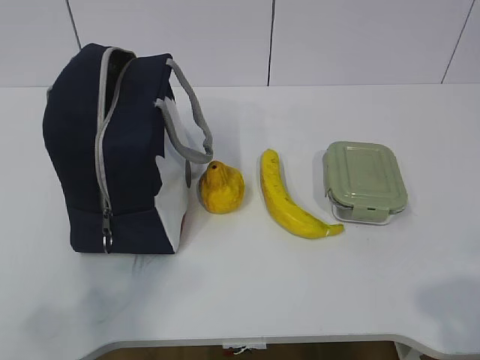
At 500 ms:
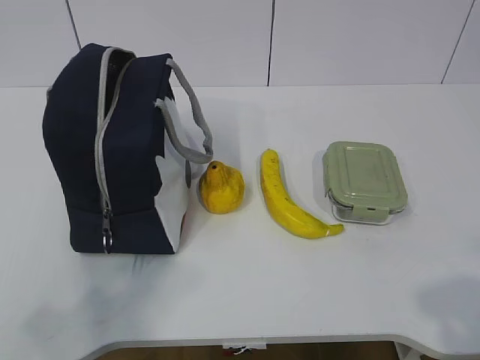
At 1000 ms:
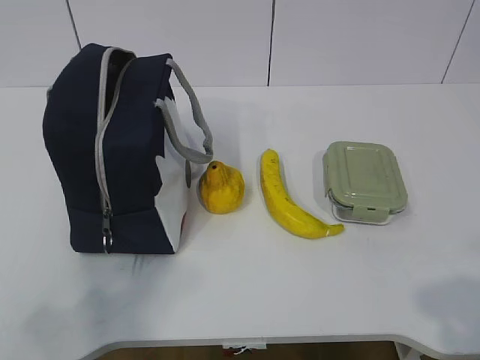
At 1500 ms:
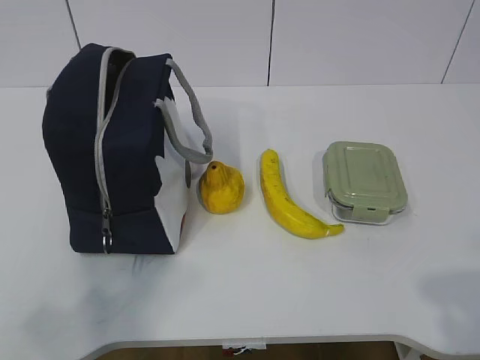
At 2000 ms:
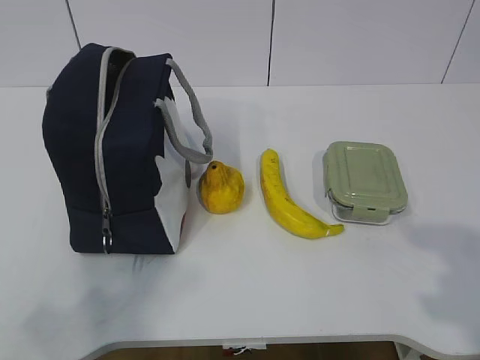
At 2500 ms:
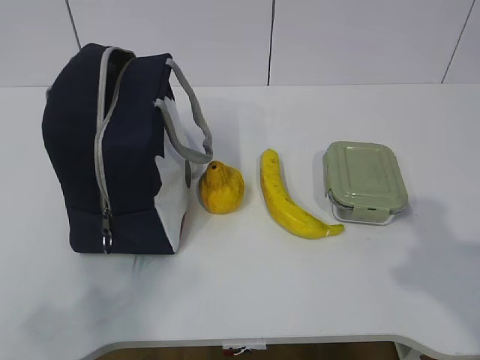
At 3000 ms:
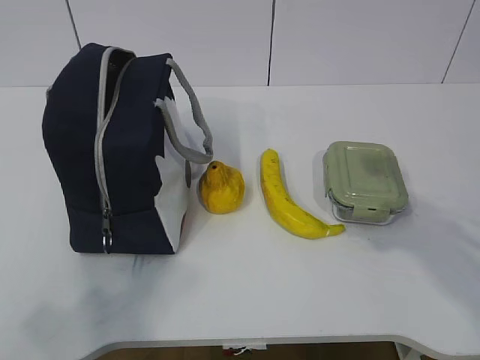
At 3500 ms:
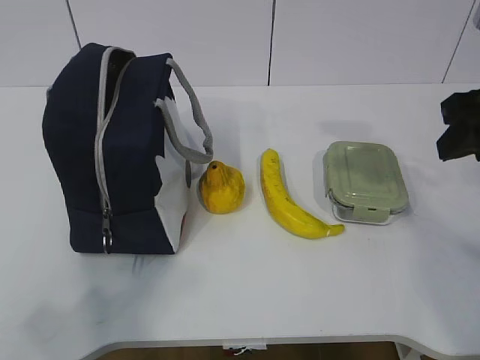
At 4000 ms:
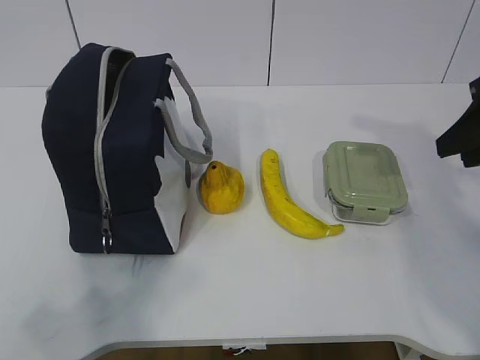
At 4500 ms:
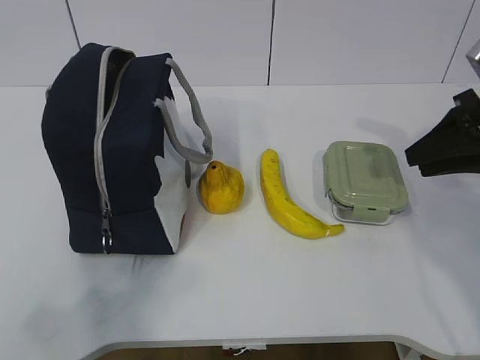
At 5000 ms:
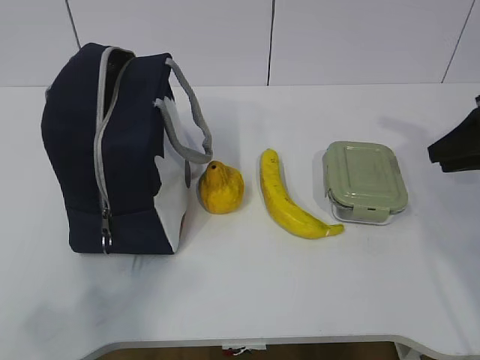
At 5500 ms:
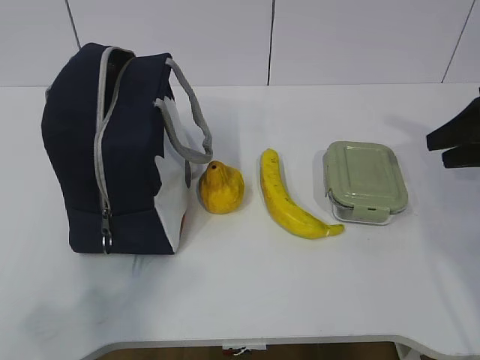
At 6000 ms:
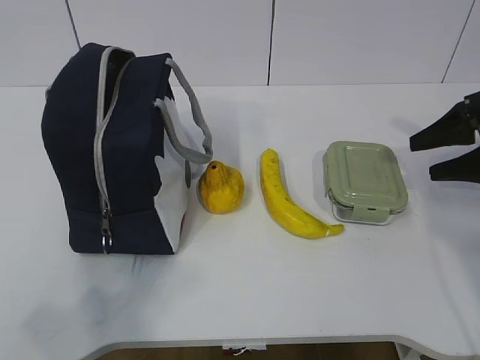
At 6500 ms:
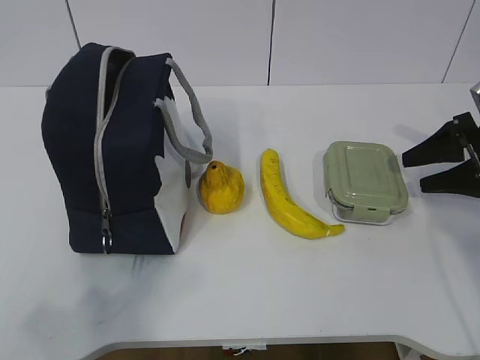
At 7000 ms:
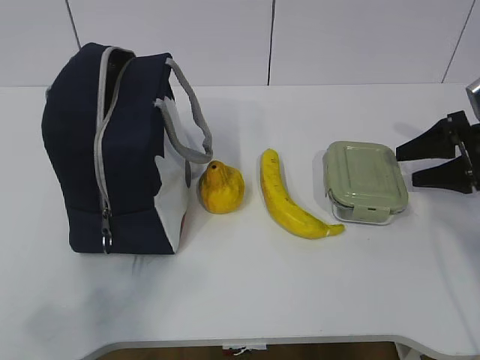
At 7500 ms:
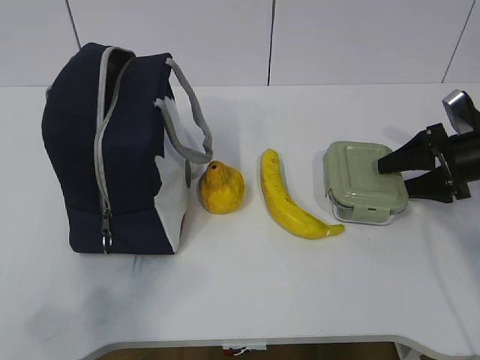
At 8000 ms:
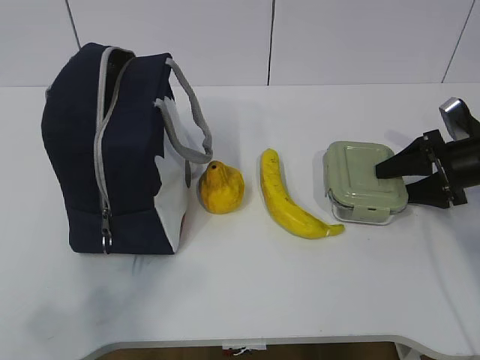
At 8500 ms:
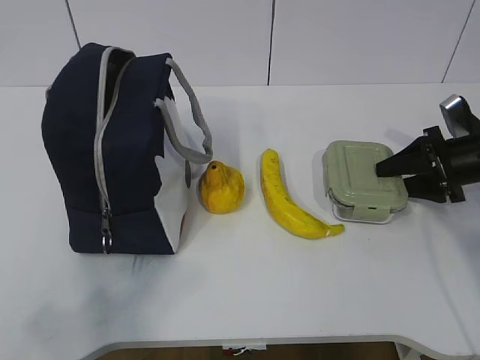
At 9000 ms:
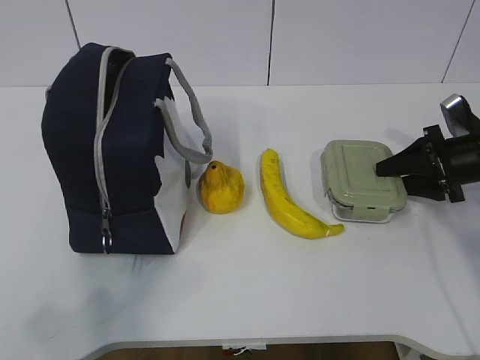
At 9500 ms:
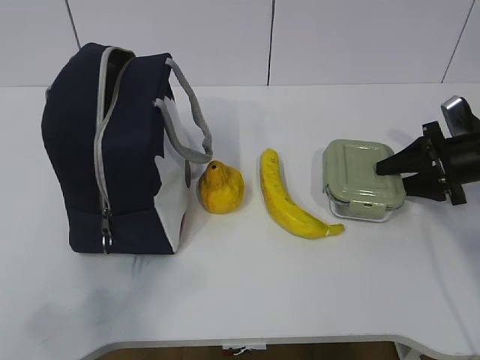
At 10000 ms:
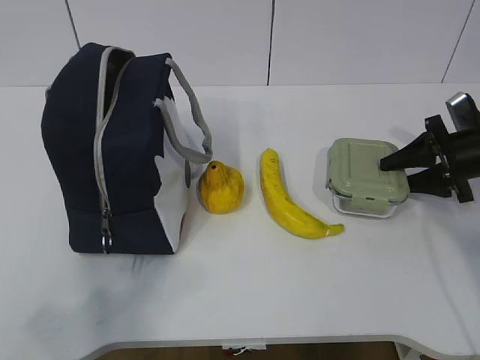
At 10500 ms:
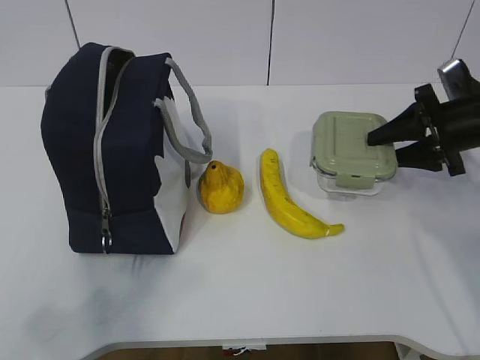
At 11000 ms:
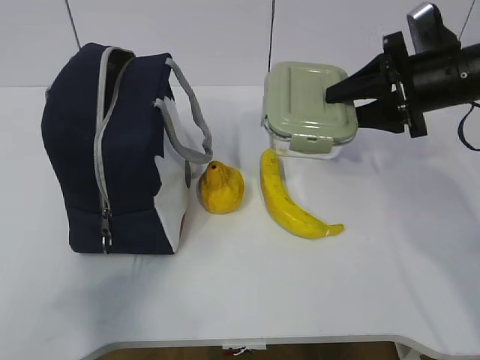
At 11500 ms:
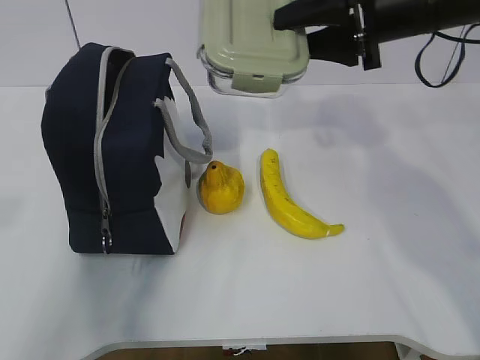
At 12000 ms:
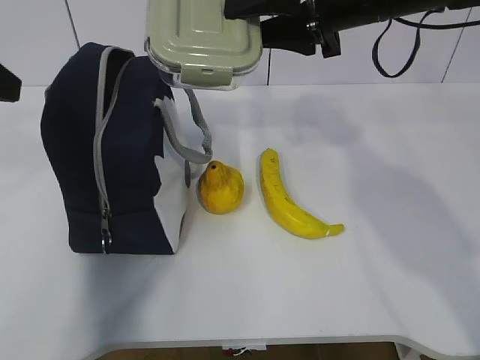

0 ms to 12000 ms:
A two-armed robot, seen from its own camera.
Step, 0 ms to 7500 ms: Grab the lunch box with your right hand.
Step, 8000 ms to 11000 ms: Grab the lunch bag with your left hand.
2000 ms to 4000 ms: The right gripper travels forward by approximately 25 cm.
4000 ms to 6000 ms: The right gripper goes some 10 cm downward, forward and to the right, and opens up.
6000 ms to 8000 ms: The right gripper goes approximately 5 cm downward.
8000 ms to 10000 ms: The grippers stay close to where they were, moving slightly.
10000 ms to 12000 ms: The left gripper travels forward by some 25 cm, and opens. Meanwhile the right gripper is displaced to the left and upward by some 30 cm.

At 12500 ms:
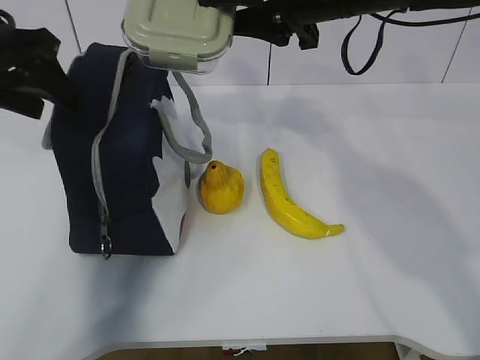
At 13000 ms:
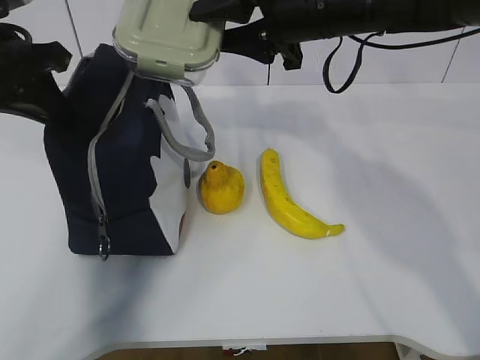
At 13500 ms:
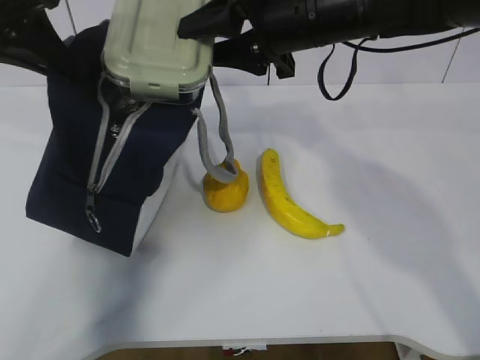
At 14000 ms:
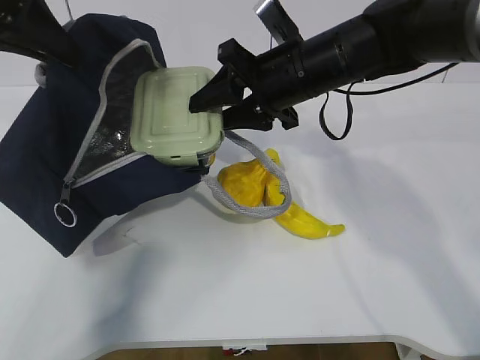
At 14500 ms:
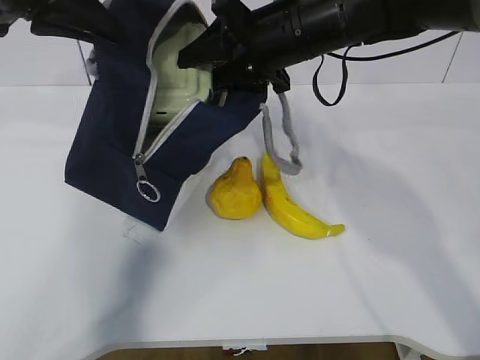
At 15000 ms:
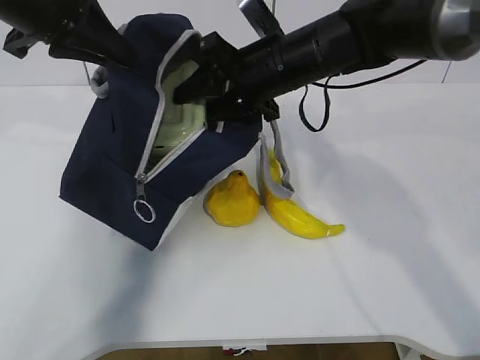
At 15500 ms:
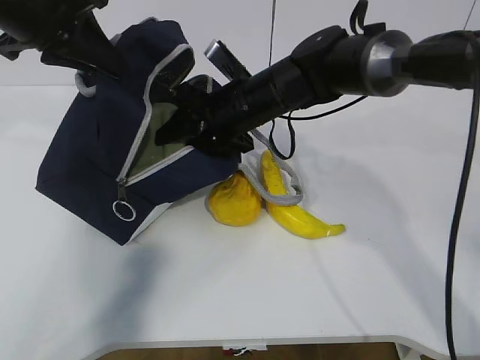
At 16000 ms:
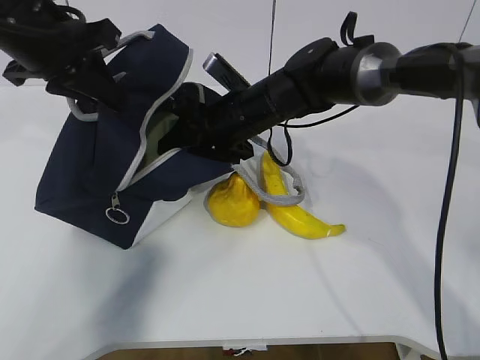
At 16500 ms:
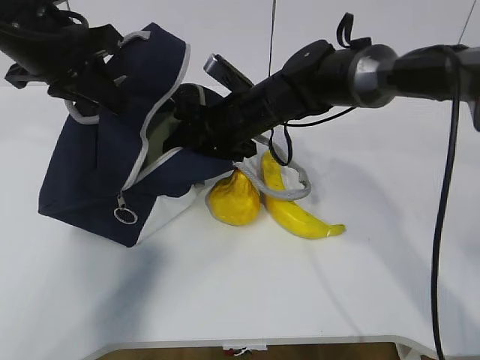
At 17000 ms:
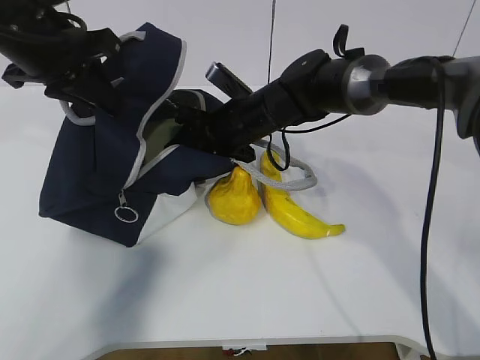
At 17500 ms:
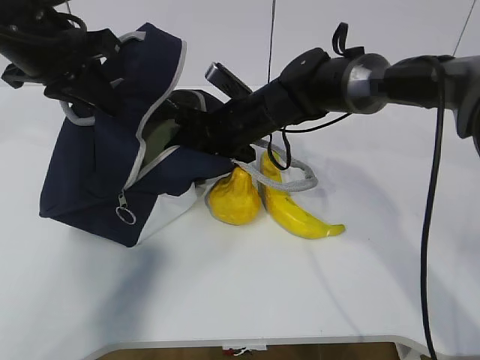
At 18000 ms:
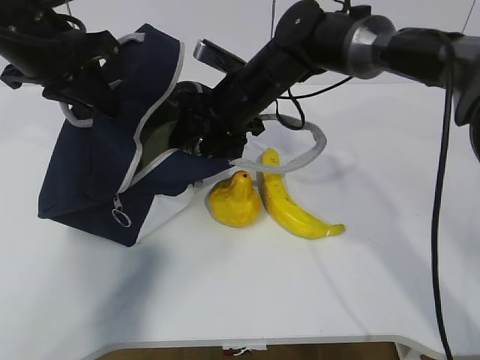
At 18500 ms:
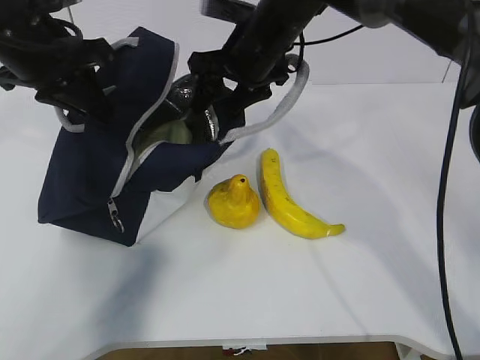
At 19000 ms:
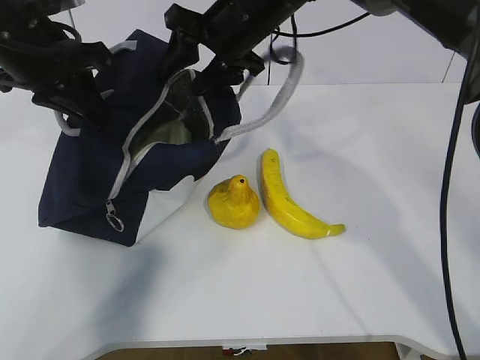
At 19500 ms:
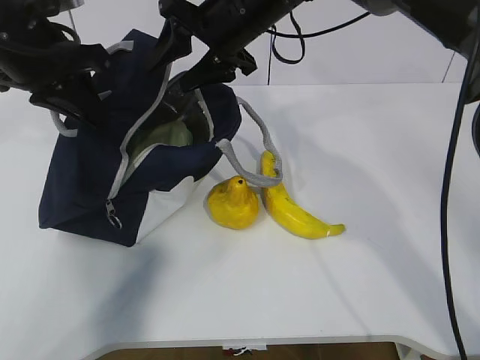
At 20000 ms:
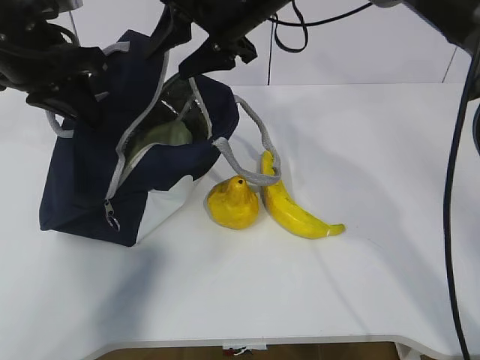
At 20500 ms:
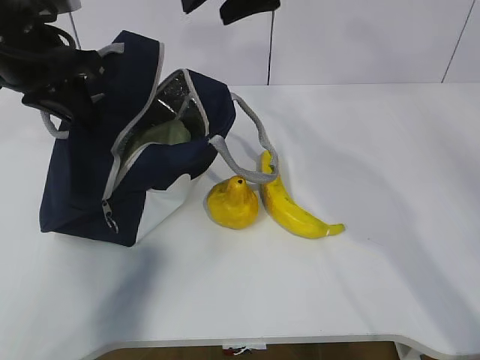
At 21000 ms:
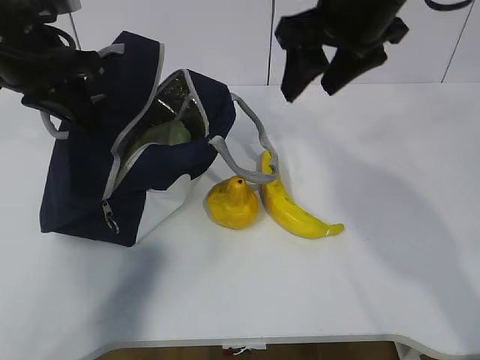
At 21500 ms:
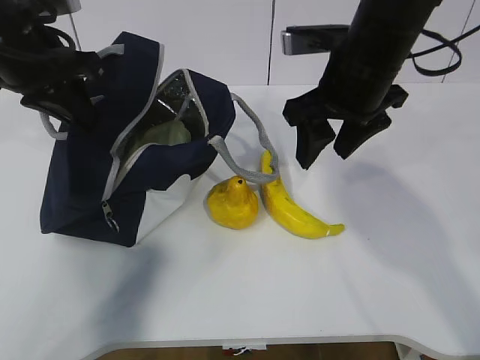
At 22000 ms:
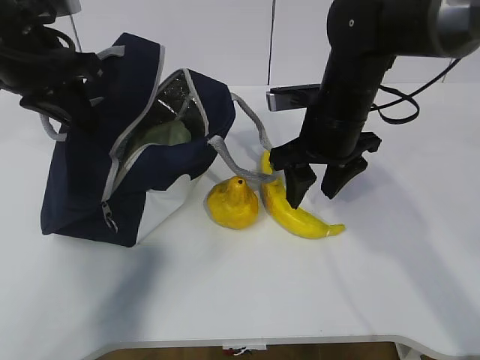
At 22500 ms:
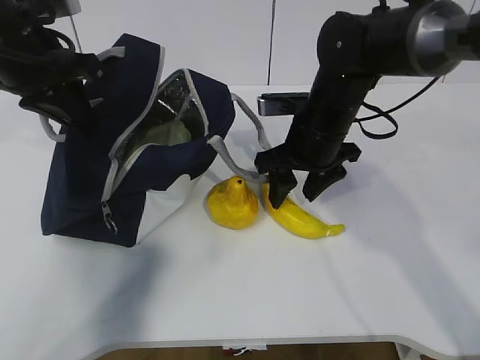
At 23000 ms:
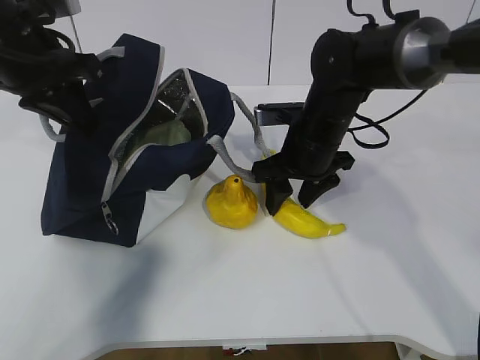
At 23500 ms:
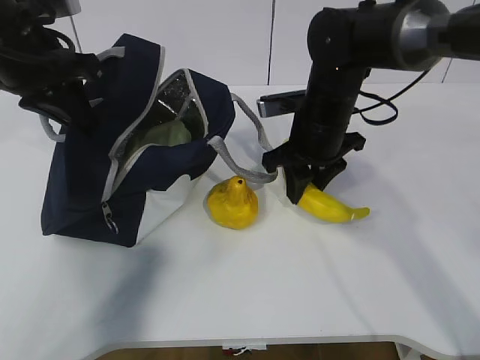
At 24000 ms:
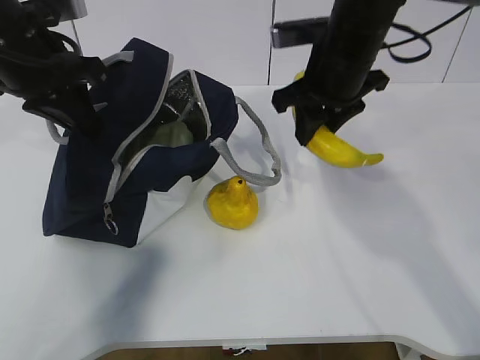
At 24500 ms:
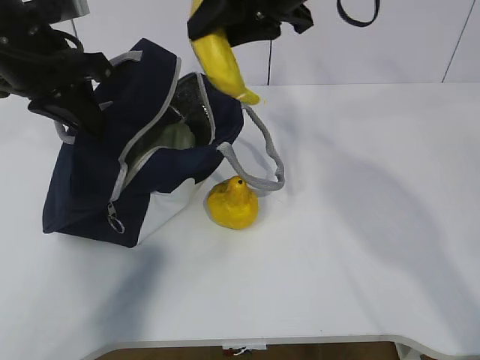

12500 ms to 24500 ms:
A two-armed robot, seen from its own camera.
Step, 12500 ms to 14500 ms: Place it into the bag with your right hand.
Step, 15500 ms to 19000 ms: Grab the banana with your right hand.
Step, 19500 ms to 22000 ms: Place it into the bag with your right hand.
12500 ms to 14500 ms: The right gripper ends up about 5 cm from where it was; the left gripper travels upward by about 5 cm, and closes its fingers.
14500 ms to 16500 ms: The left gripper moves downward, some 5 cm; the right gripper goes roughly 10 cm downward.
16500 ms to 18500 ms: The right gripper heads upward, covering some 10 cm.
18500 ms to 20500 ms: The right gripper moves upward, some 10 cm.
20500 ms to 22500 ms: The right gripper heads downward, covering about 20 cm.
22500 ms to 24500 ms: The right gripper goes about 15 cm upward, and closes its fingers.

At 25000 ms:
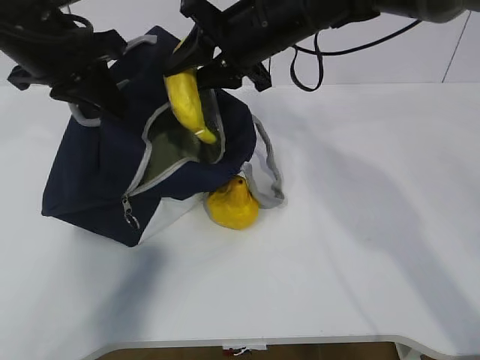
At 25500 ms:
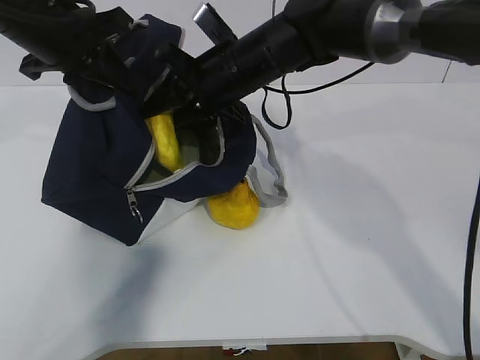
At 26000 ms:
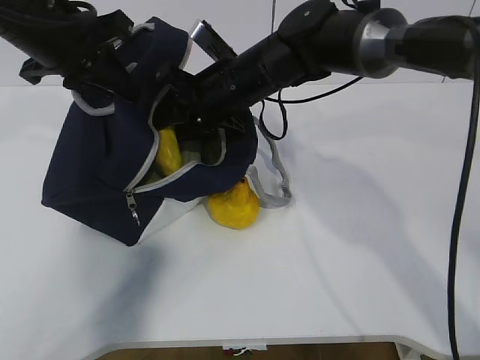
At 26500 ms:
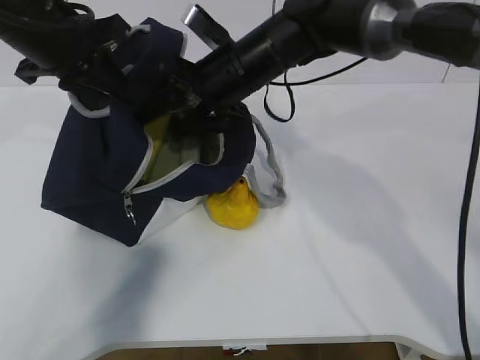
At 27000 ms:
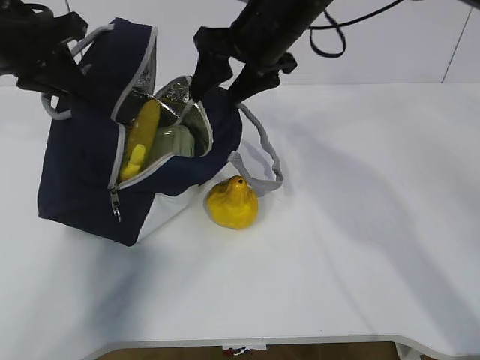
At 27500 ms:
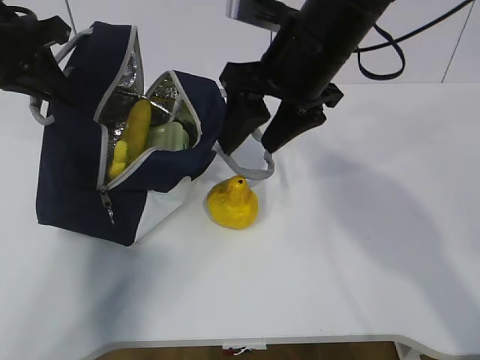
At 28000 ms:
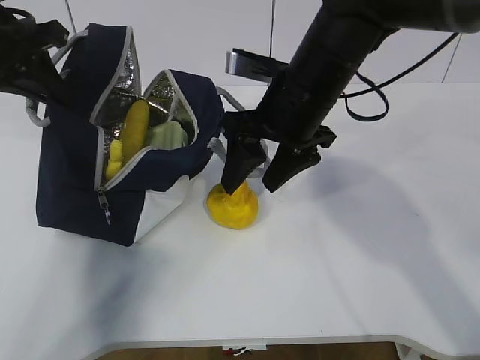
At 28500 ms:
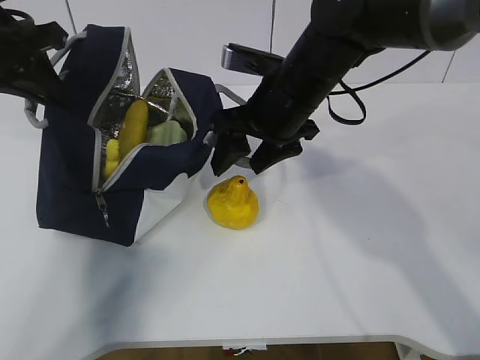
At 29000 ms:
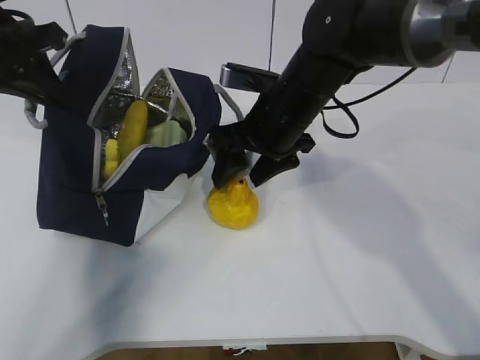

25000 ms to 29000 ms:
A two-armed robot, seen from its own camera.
Step, 25000 ms to 27000 ms: Secure the lunch bag with your left hand.
25000 ms to 27000 ms: The right gripper opens its fingers.
27000 ms to 29000 ms: The right gripper goes about 10 cm downward.
